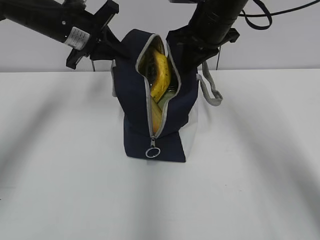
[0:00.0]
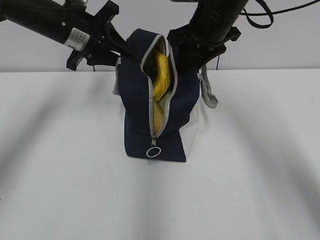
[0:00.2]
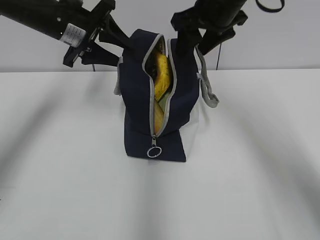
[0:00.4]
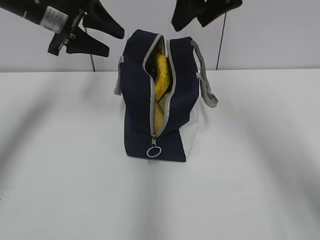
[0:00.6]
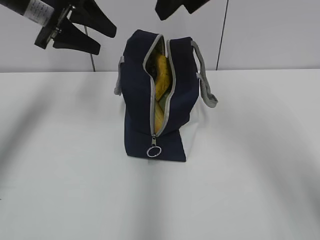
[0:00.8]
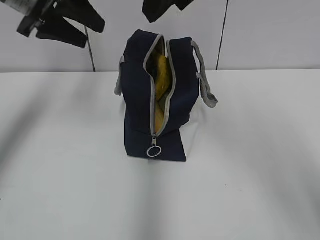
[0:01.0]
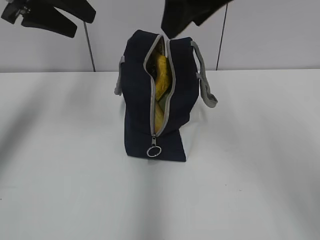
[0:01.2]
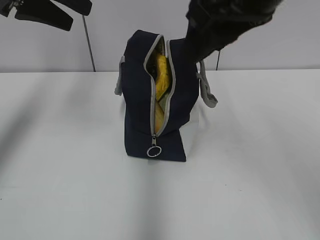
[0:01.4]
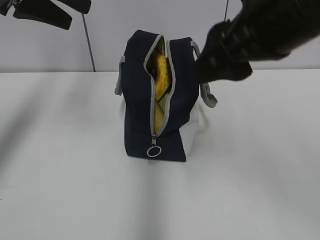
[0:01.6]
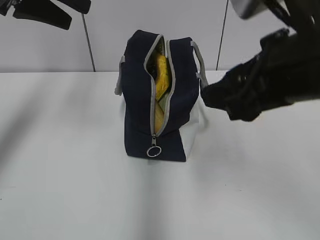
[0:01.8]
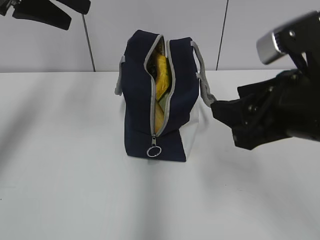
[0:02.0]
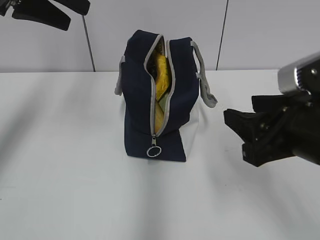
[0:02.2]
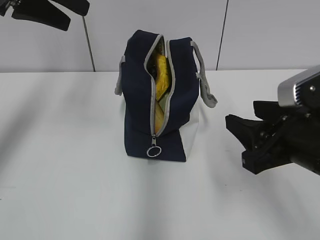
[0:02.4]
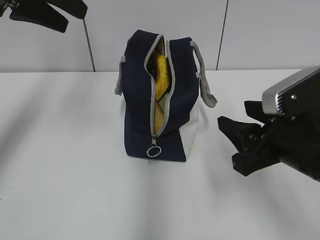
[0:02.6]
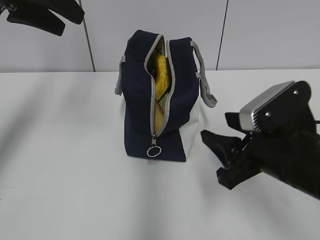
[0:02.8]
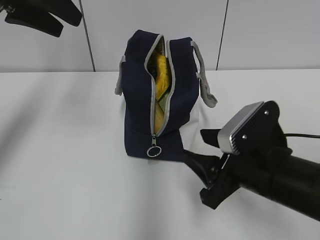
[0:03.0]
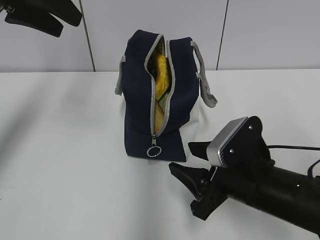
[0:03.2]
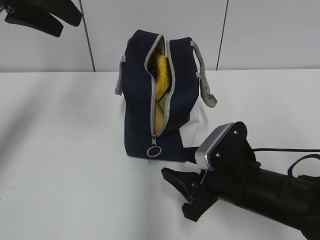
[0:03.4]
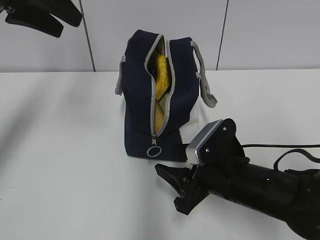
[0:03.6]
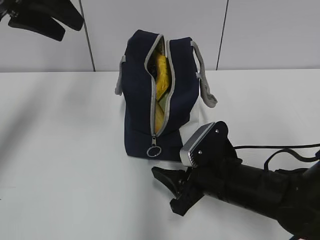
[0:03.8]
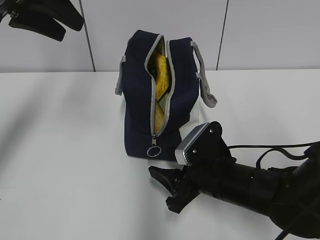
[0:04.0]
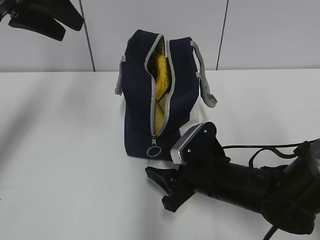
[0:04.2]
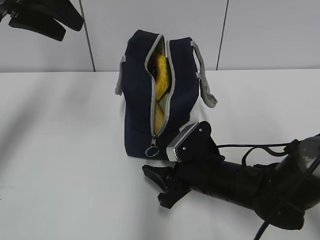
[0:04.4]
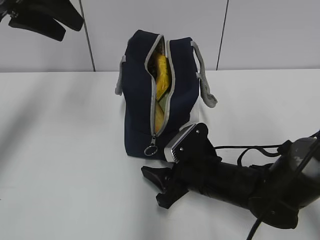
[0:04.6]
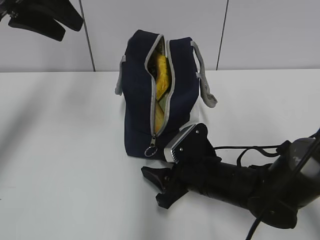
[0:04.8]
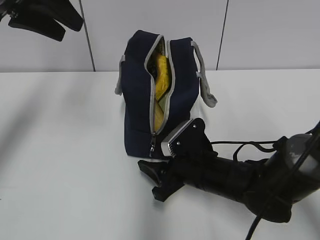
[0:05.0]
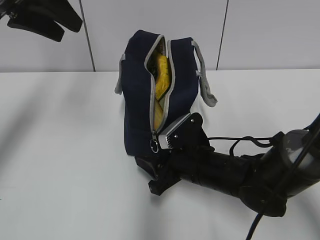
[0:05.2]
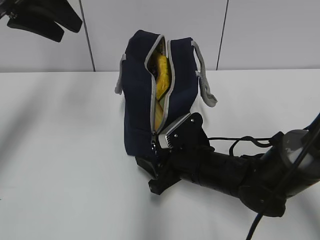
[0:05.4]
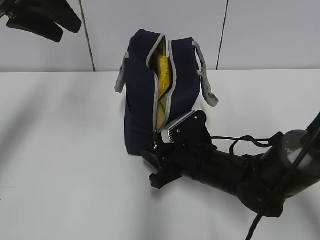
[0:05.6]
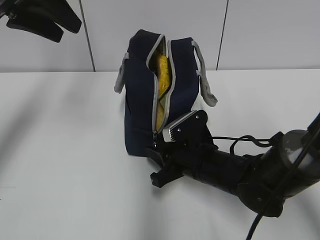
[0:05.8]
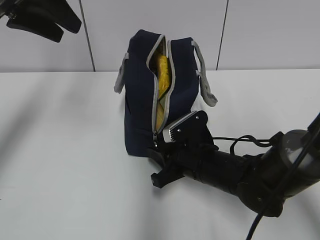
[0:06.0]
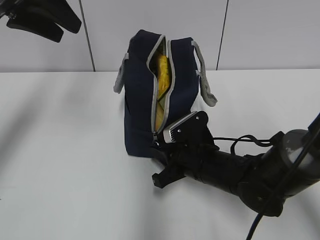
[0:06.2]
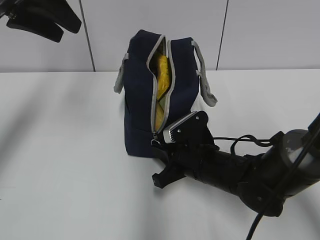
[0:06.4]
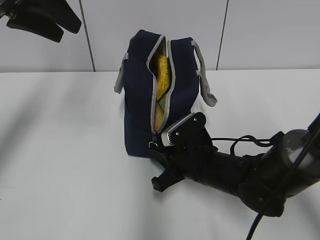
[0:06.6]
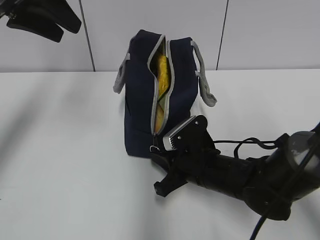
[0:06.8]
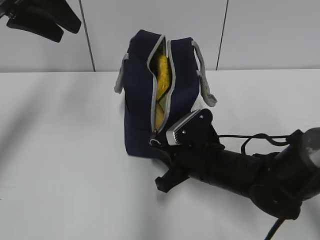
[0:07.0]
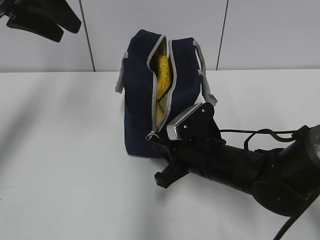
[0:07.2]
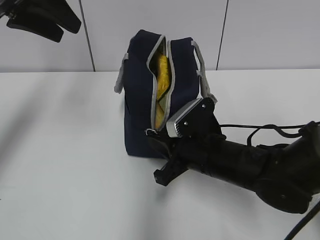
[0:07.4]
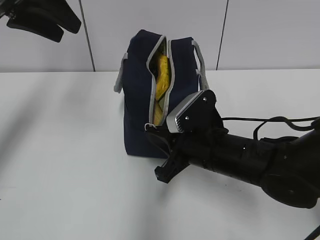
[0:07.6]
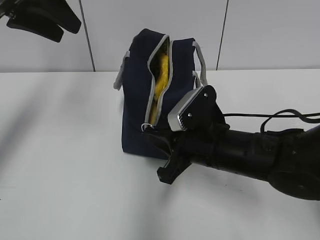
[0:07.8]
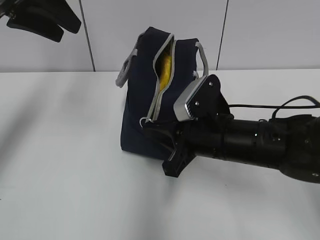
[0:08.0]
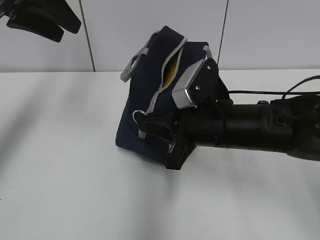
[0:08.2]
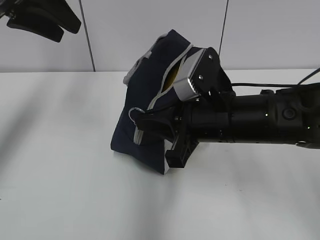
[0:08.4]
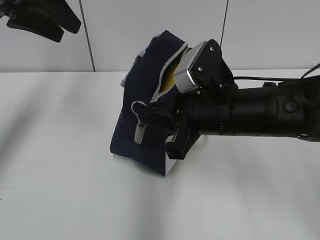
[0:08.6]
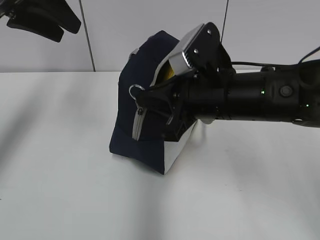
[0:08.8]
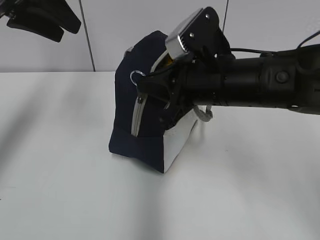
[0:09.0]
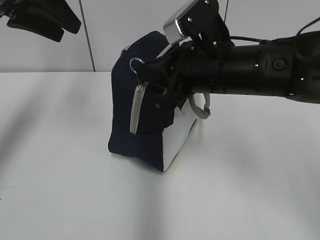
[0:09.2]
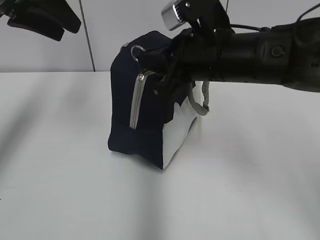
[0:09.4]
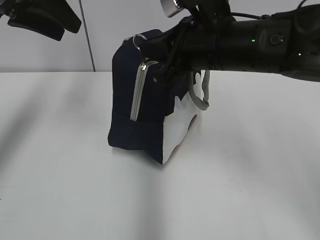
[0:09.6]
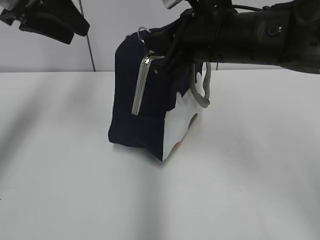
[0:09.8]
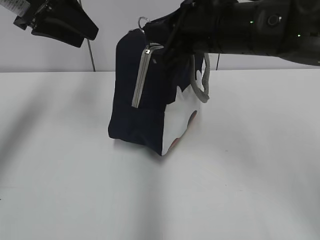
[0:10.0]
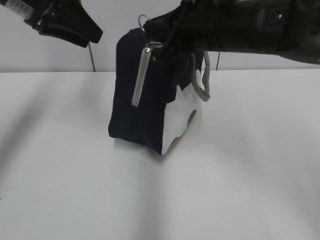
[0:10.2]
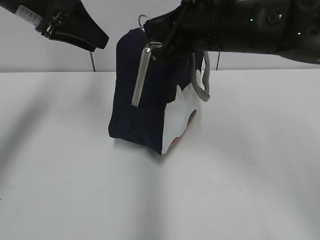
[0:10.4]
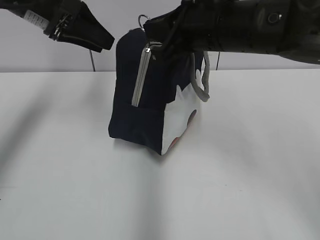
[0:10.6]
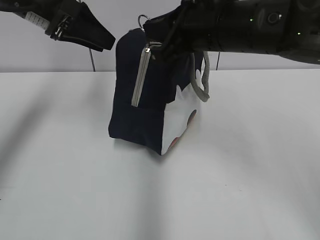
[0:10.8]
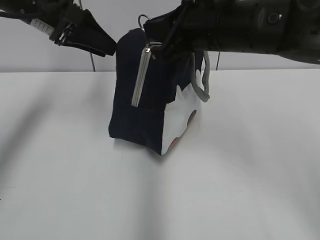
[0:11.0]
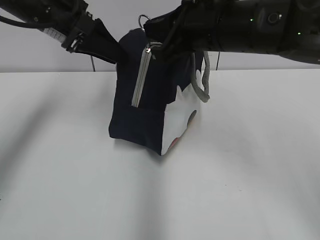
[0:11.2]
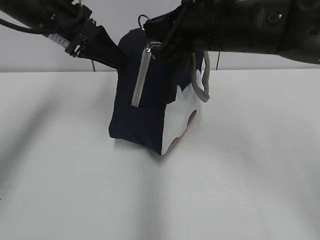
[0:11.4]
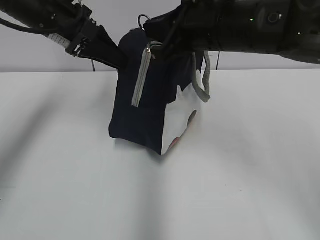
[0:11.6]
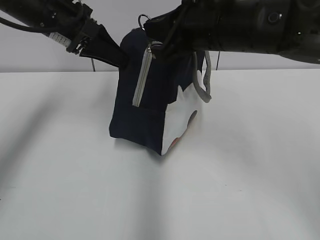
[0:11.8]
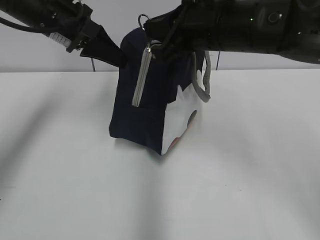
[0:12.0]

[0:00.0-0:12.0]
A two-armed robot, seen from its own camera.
Step, 0:00.4 to 0:11.8: Grab the lunch bag with your left hand.
0:00.0 to 0:01.6: The left gripper moves upward and backward, approximately 15 cm, and opens; the right gripper goes roughly 20 cm backward, and opens up.
0:01.6 to 0:03.0: The right gripper shifts about 20 cm downward.
0:03.0 to 0:04.4: The right gripper travels downward and forward by roughly 10 cm.
0:04.4 to 0:06.0: The right gripper closes up.
0:06.0 to 0:07.6: The right gripper travels upward by about 5 cm.
0:07.6 to 0:09.0: The right gripper shifts about 10 cm upward.
0:09.0 to 0:10.4: The right gripper shifts some 5 cm upward. Meanwhile the left gripper ends up some 5 cm from where it was.
0:10.4 to 0:12.0: The left gripper changes place by some 5 cm, and closes.

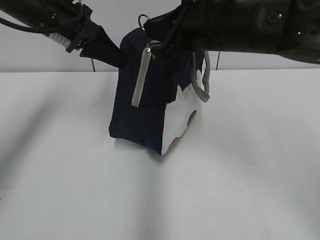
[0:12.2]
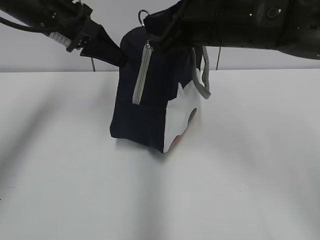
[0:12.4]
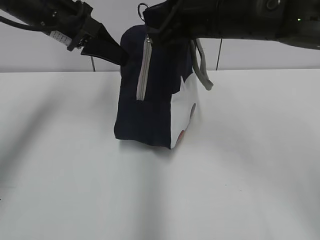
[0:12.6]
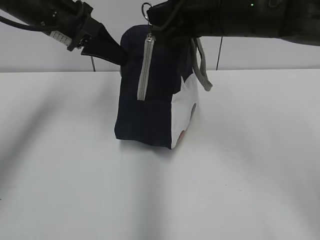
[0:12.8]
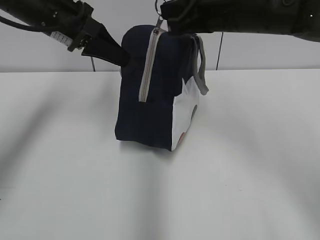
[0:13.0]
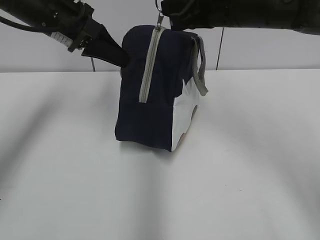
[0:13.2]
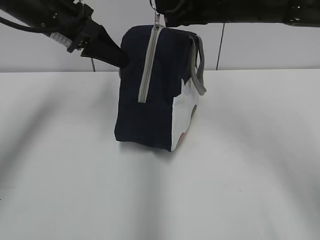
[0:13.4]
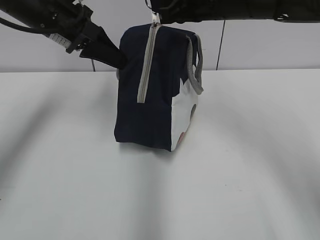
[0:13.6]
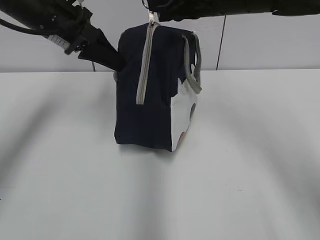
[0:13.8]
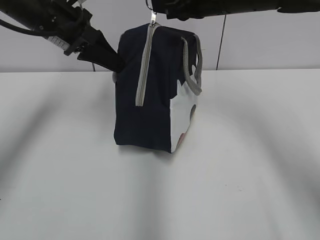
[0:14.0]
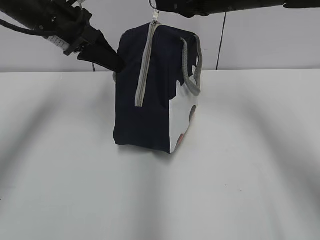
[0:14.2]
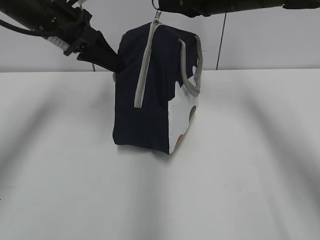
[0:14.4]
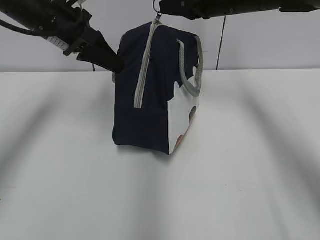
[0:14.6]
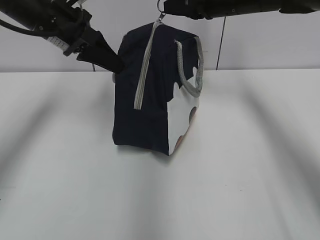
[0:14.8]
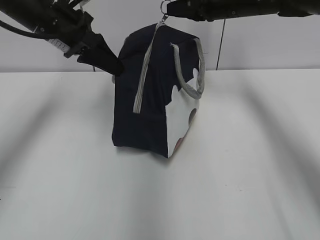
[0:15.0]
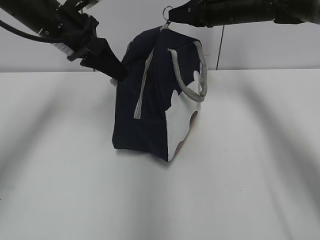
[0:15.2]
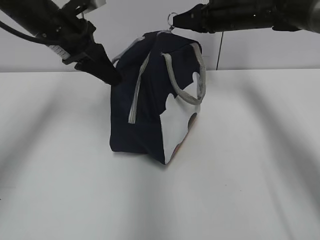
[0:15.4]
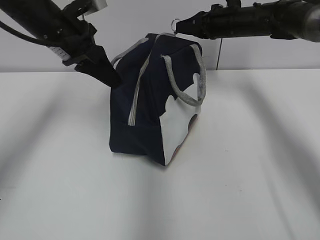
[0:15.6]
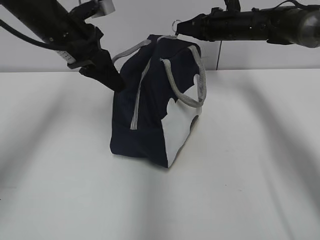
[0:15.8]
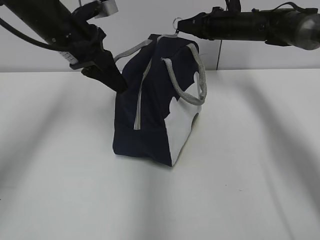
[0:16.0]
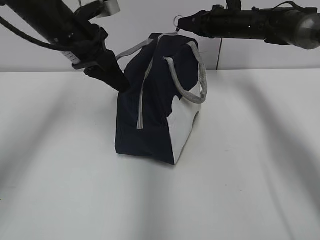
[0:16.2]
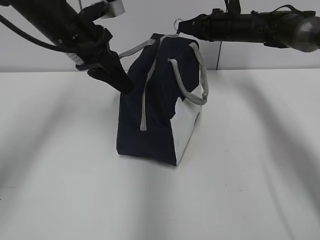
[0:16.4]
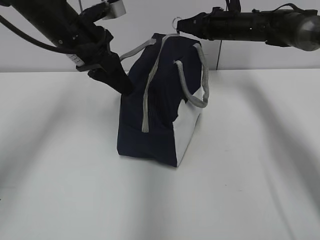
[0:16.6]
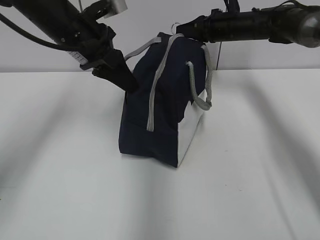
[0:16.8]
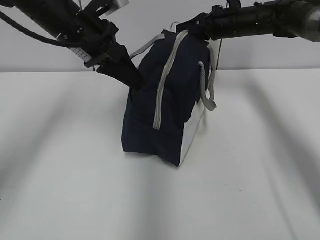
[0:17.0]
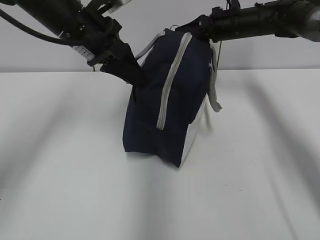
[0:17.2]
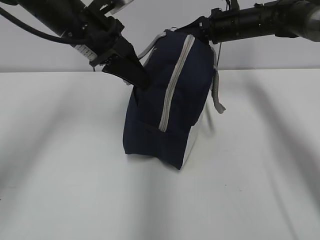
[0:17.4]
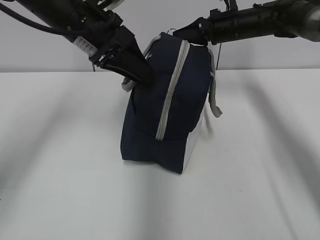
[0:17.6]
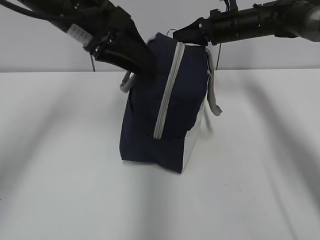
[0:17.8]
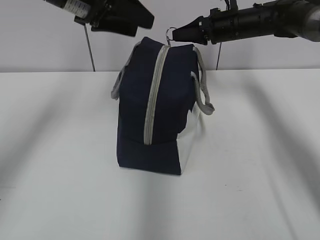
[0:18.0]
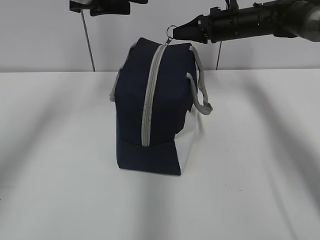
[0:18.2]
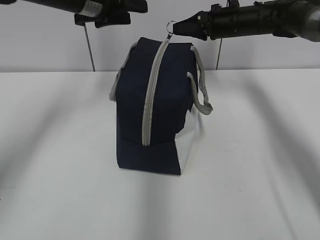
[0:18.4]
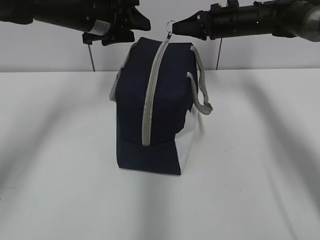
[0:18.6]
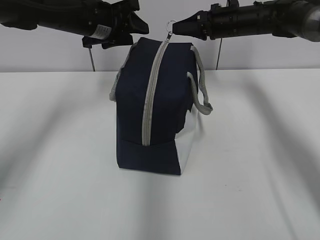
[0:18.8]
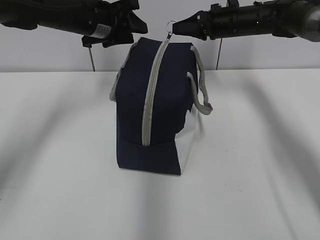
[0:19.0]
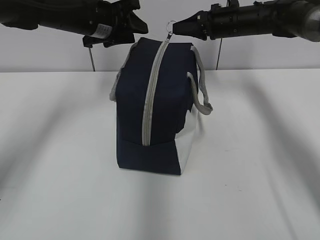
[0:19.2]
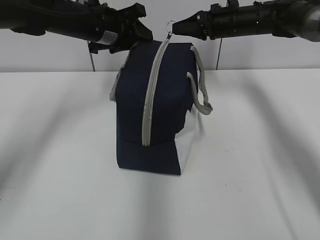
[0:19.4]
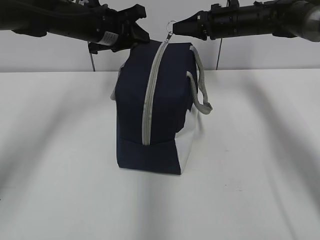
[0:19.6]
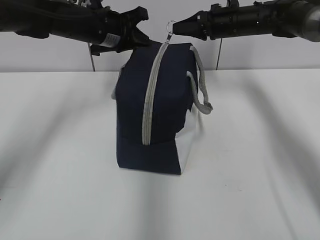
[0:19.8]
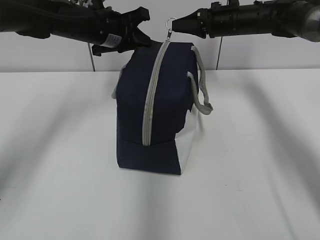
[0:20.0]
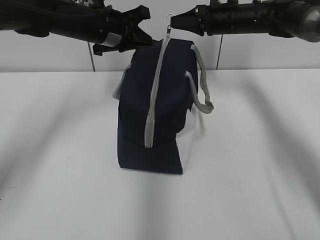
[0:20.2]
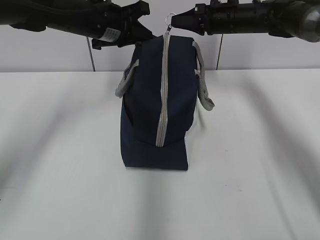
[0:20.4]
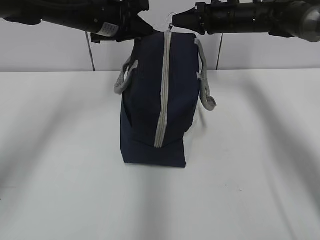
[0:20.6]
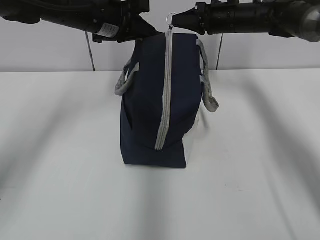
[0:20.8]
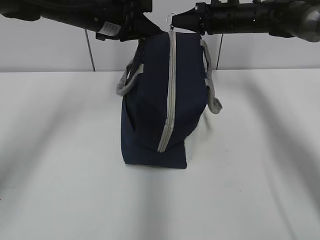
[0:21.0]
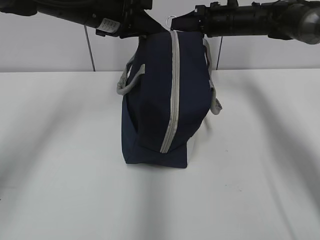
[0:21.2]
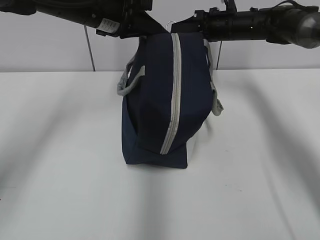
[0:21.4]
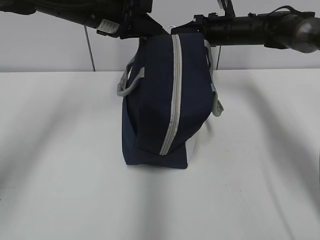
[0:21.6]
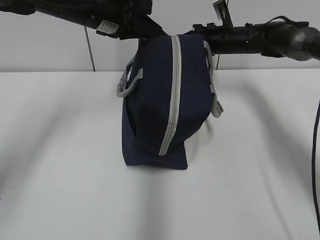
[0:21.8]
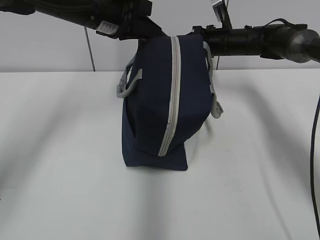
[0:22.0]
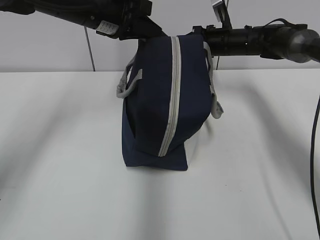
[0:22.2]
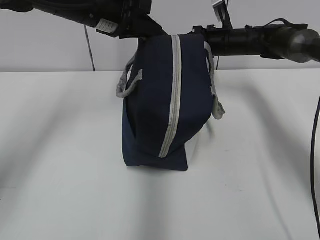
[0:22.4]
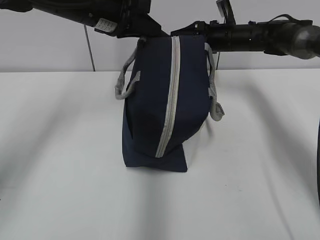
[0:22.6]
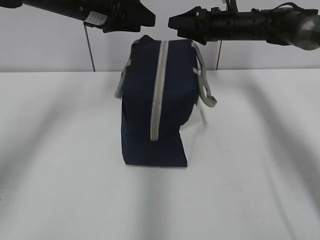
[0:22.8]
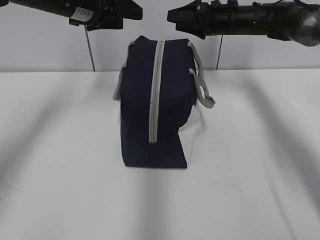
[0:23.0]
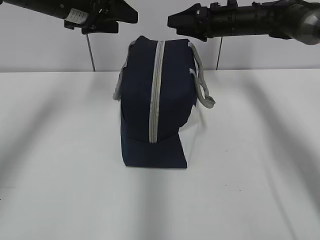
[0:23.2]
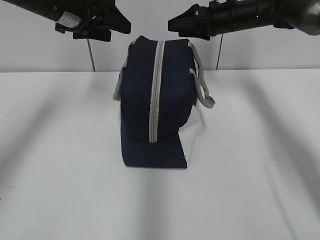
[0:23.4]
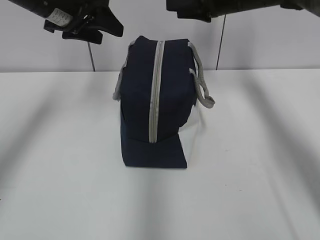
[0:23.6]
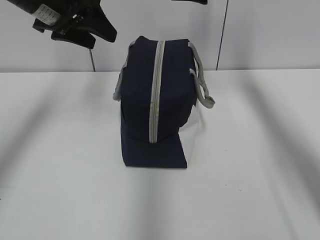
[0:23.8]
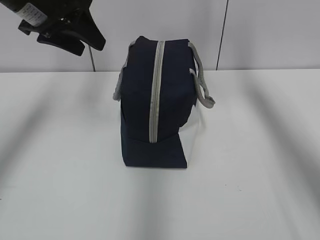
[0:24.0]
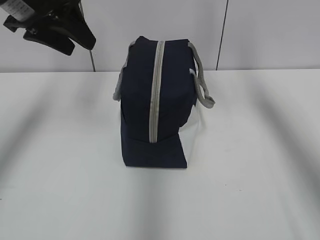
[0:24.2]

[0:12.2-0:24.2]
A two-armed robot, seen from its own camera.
Step, 0:12.2 to 0:22.0: Pull the zipper with your right hand.
0:12.2 to 0:13.8: The right gripper goes some 5 cm forward.
0:13.8 to 0:15.2: The right gripper heads forward, to the right and downward, covering approximately 15 cm.
0:15.2 to 0:16.6: The right gripper goes approximately 5 cm downward.
0:16.6 to 0:18.2: The left gripper heads upward, covering some 5 cm, and opens its fingers.
0:18.2 to 0:19.8: The left gripper travels downward and forward by about 10 cm, and closes its fingers.
0:19.8 to 0:21.2: The left gripper changes place by roughly 5 cm.
0:21.2 to 0:22.6: The right gripper opens.
0:22.6 to 0:24.2: The left gripper heads to the left and backward, covering about 10 cm, and opens its fingers. Meanwhile the right gripper is displaced upward and backward by about 20 cm.
